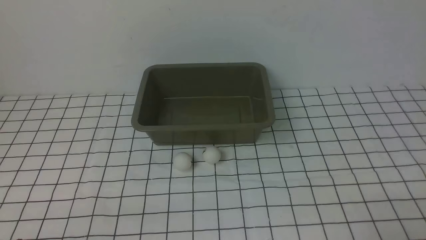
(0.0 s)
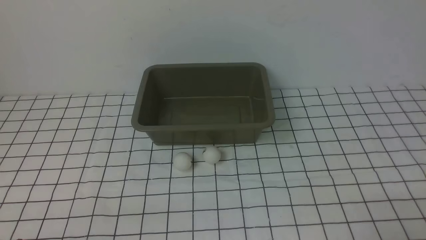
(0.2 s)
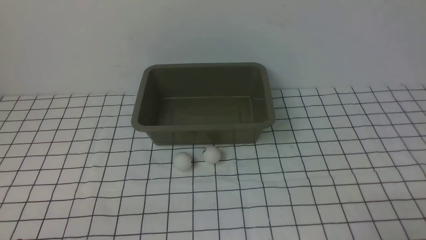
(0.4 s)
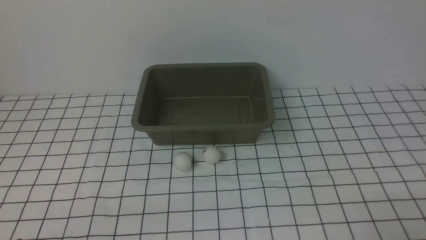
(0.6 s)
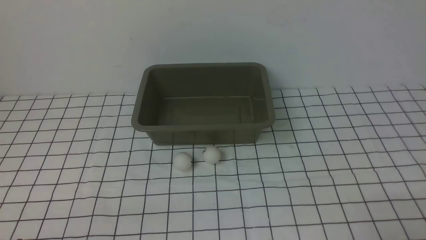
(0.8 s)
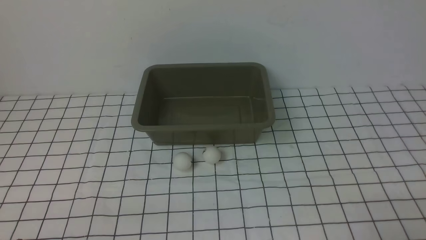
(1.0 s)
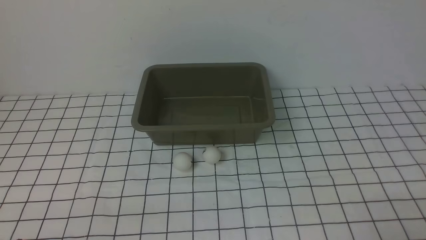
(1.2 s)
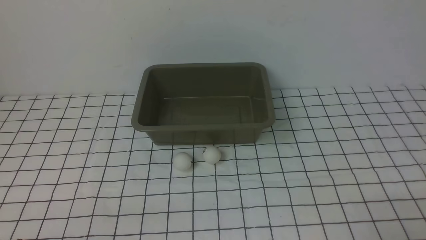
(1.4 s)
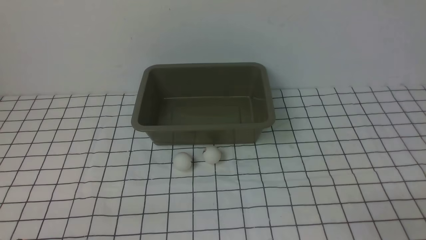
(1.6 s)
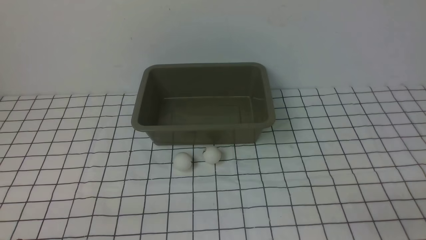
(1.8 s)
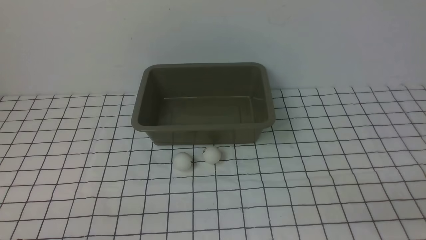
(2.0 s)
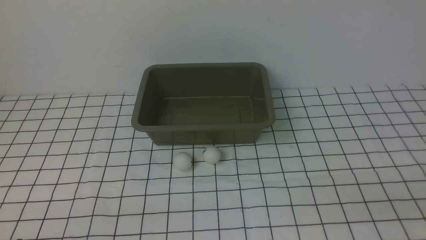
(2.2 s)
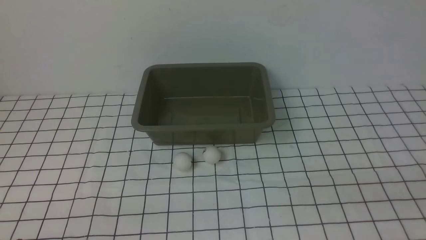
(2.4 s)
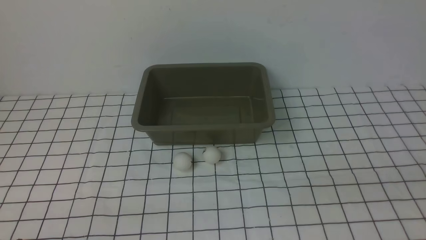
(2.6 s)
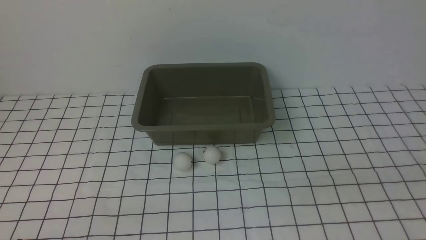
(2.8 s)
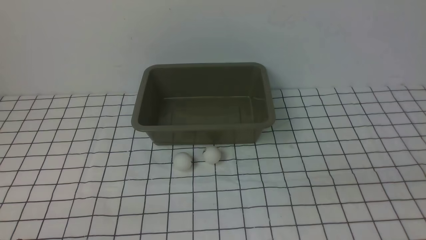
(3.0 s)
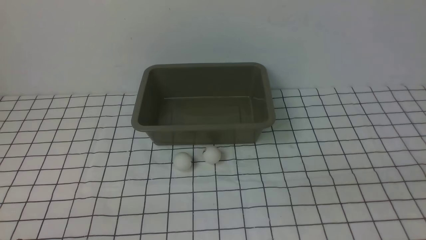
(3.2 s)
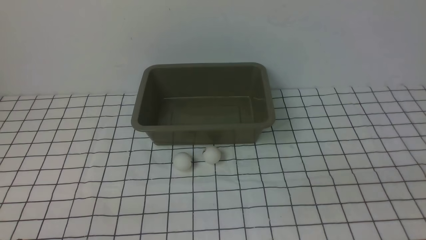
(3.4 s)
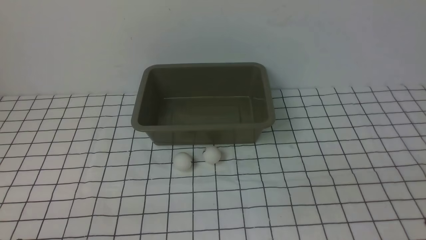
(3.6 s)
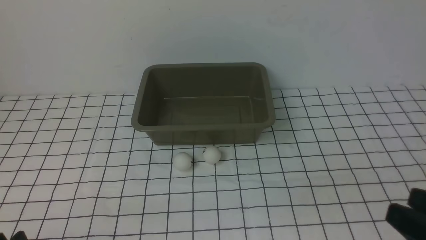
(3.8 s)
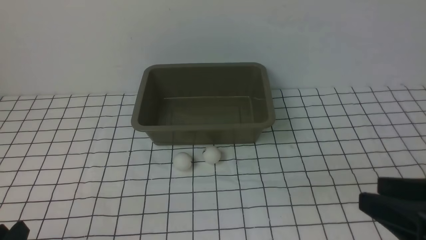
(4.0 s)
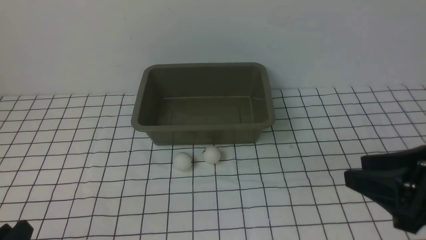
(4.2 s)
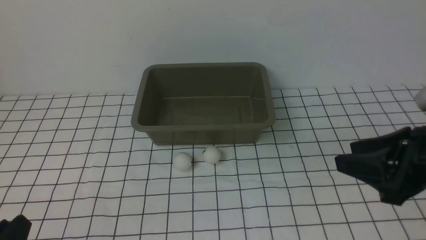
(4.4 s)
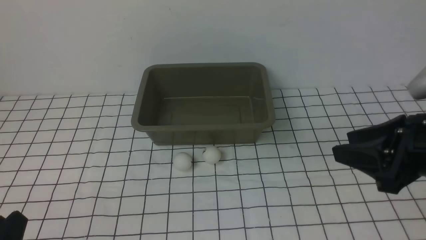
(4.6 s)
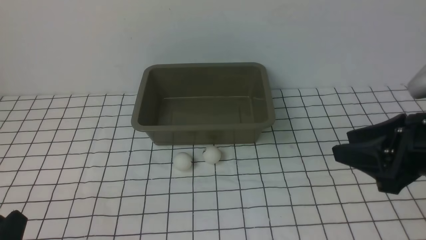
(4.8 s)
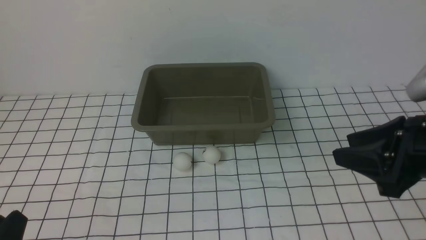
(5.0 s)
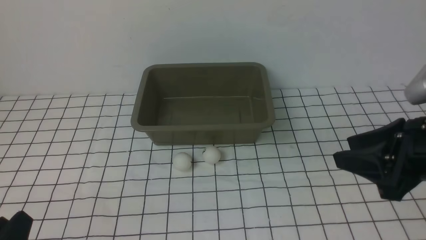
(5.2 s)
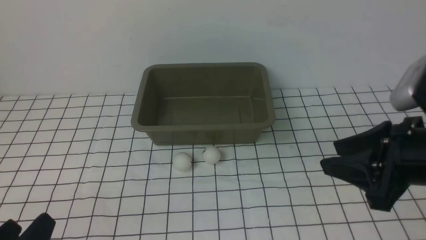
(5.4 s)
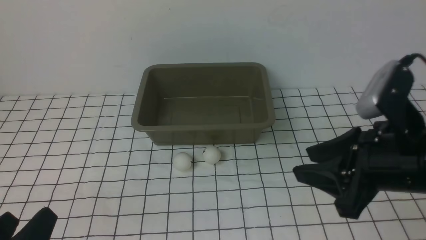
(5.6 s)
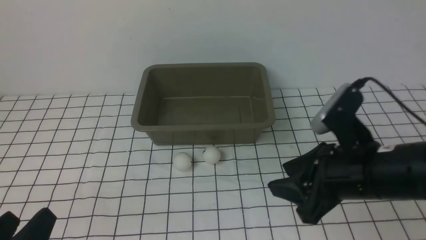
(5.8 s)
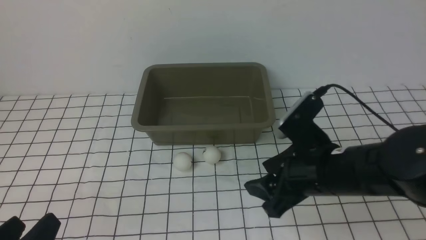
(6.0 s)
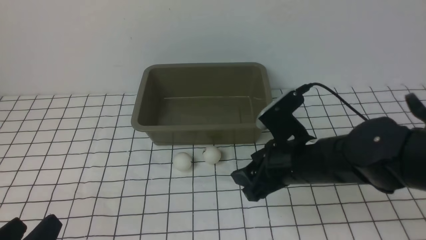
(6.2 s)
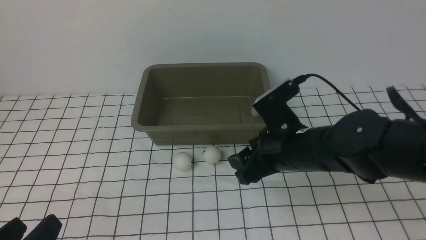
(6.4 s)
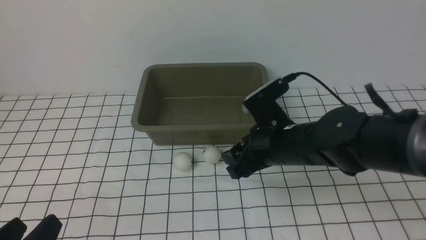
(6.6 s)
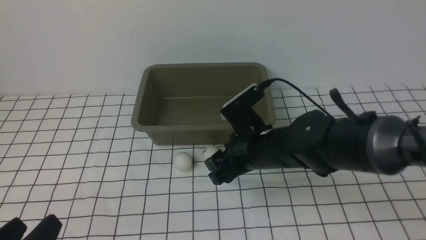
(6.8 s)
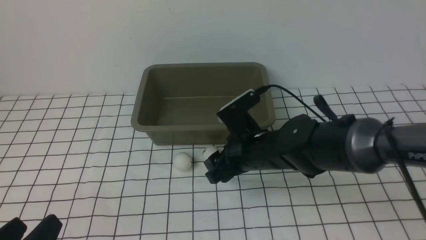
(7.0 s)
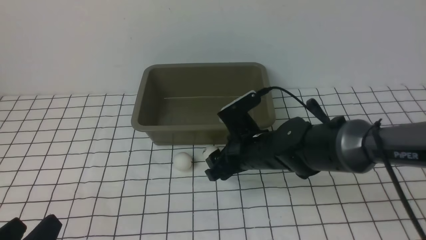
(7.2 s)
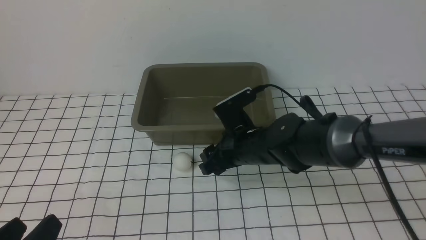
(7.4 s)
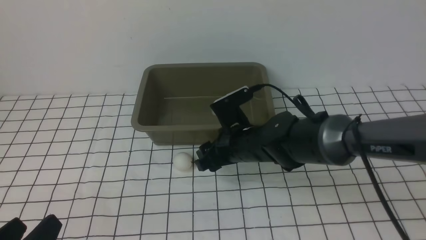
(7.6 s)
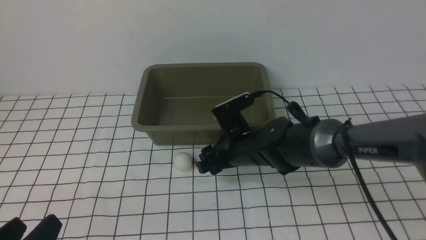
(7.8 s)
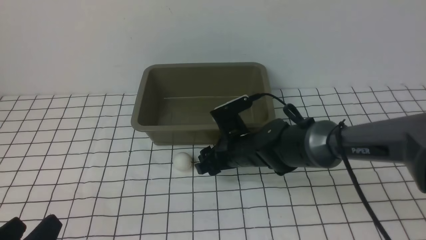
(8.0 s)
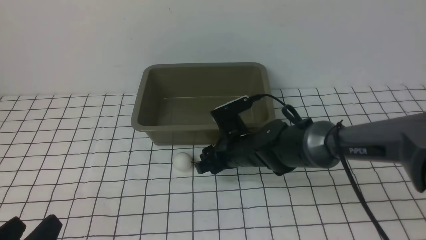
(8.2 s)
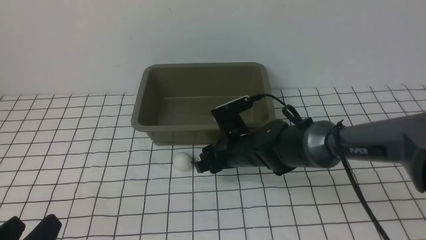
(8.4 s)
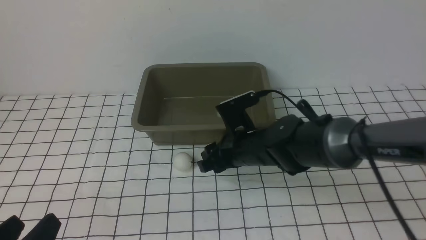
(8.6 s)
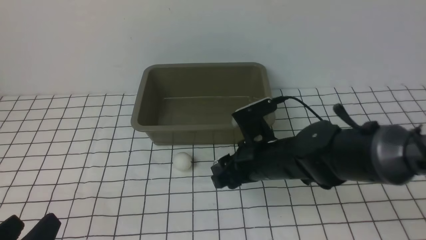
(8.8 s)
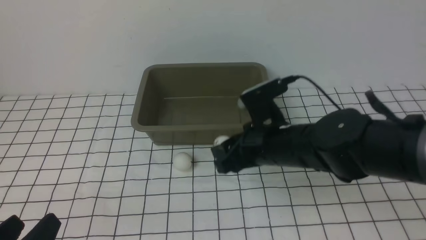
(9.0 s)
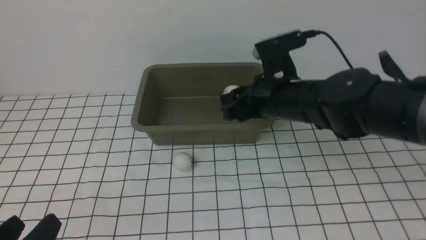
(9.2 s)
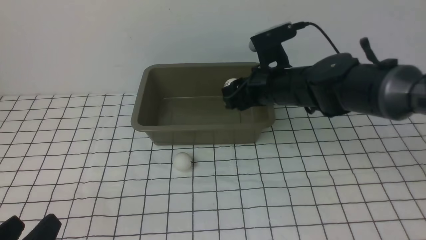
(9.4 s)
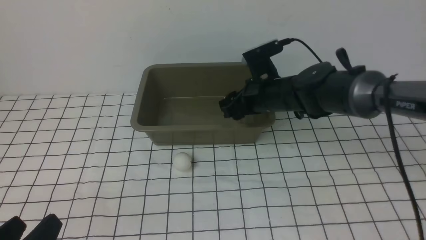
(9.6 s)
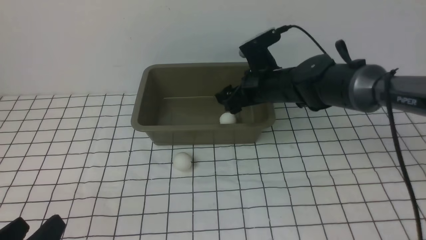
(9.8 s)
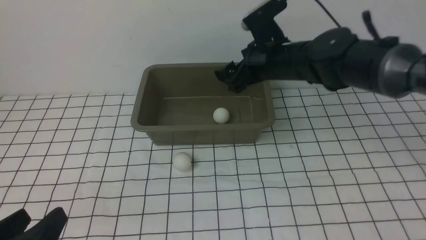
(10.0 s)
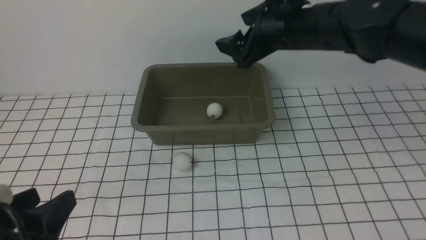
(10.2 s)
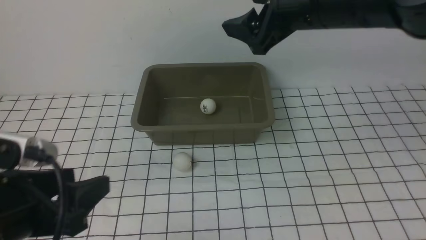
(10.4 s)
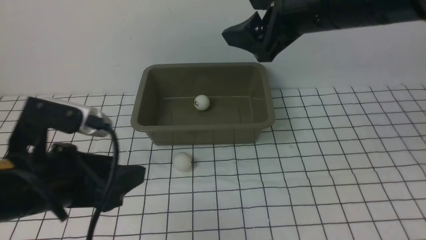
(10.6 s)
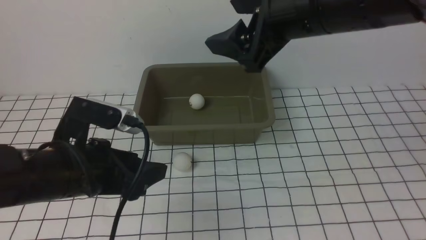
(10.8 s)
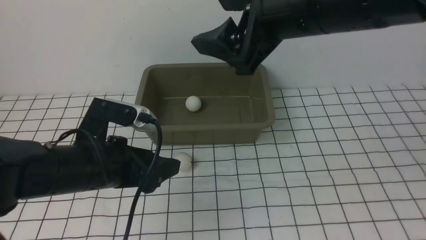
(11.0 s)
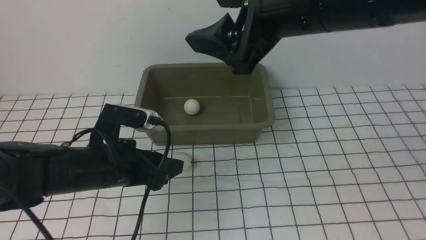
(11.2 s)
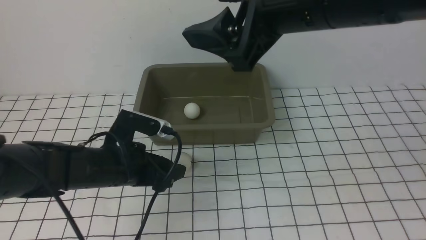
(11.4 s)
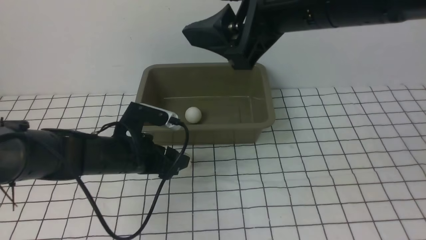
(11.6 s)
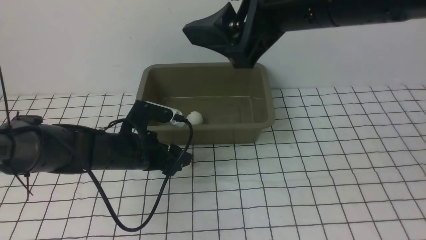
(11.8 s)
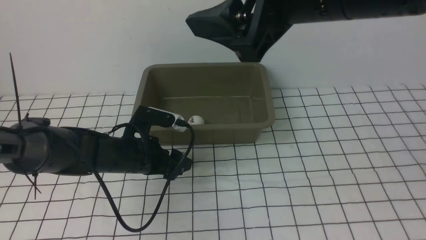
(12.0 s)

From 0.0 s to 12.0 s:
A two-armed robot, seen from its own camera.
Step, from 0.0 s to 8.8 s: use the right arm to clamp the table tennis ball closest to it.
Step, from 9.0 s to 9.8 s: use the right arm to put the table tennis ball into the box.
From 3.0 s to 4.4 s: The right gripper travels forward by approximately 15 cm.
From 4.4 s to 6.0 s: The right gripper moves to the left and forward, about 10 cm. Meanwhile the left gripper opens its fingers.
From 6.0 s to 7.6 s: The right gripper travels forward, to the left and downward by about 20 cm.
From 7.6 s to 9.0 s: The right gripper goes about 5 cm upward, and closes up.
From 9.0 s to 10.4 s: The left gripper travels upward by about 5 cm. Meanwhile the right gripper goes some 15 cm upward and forward, and opens its fingers.
From 10.4 s to 12.0 s: The left gripper travels forward and downward by roughly 25 cm. Meanwhile the right gripper shifts roughly 15 cm backward and upward.

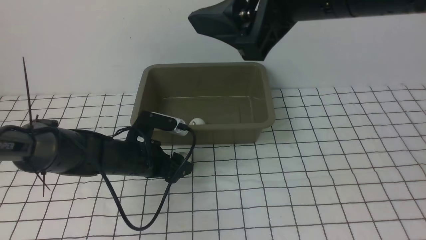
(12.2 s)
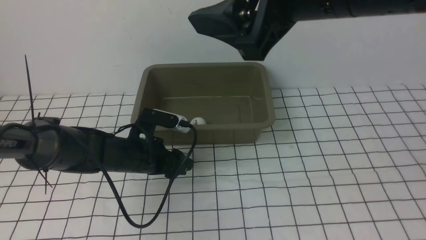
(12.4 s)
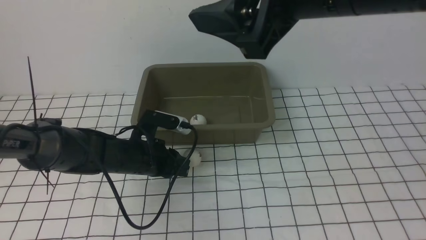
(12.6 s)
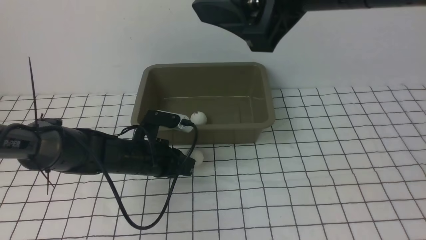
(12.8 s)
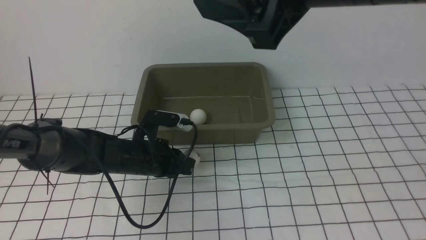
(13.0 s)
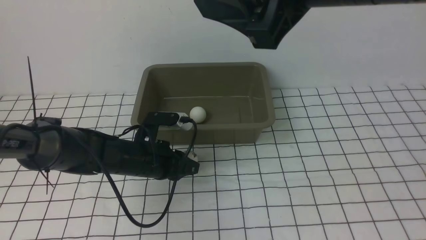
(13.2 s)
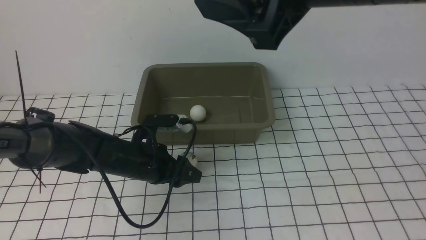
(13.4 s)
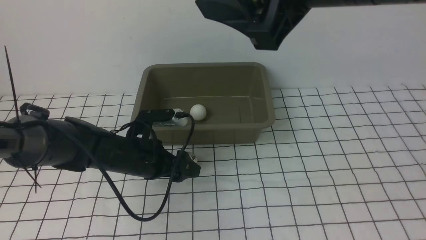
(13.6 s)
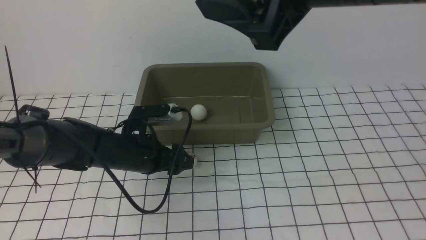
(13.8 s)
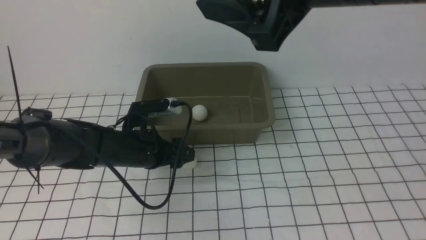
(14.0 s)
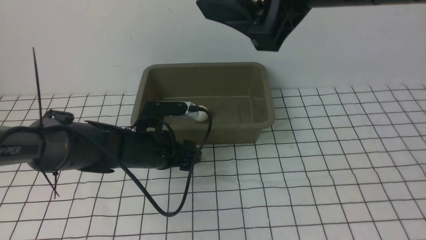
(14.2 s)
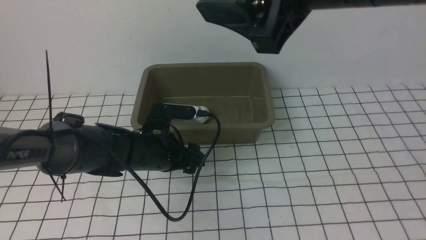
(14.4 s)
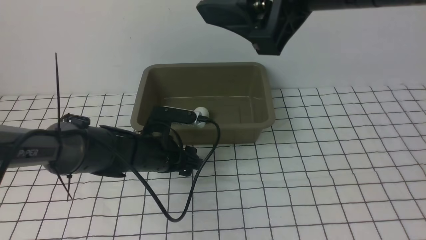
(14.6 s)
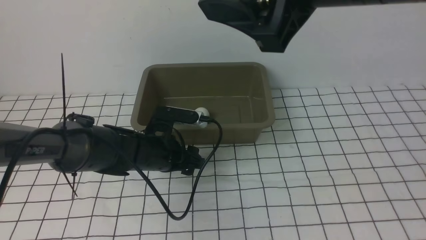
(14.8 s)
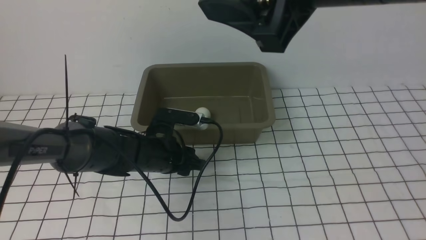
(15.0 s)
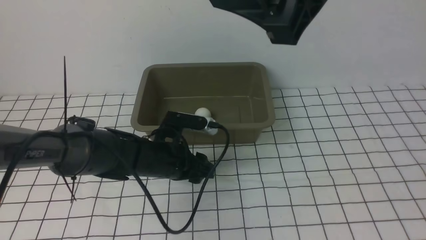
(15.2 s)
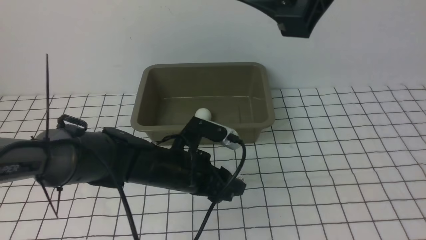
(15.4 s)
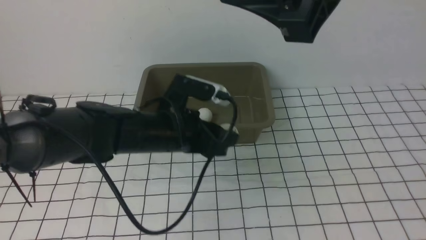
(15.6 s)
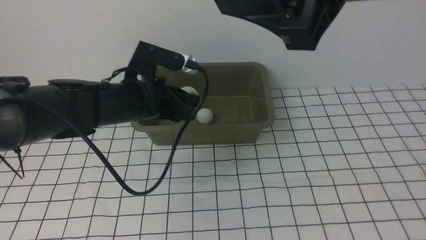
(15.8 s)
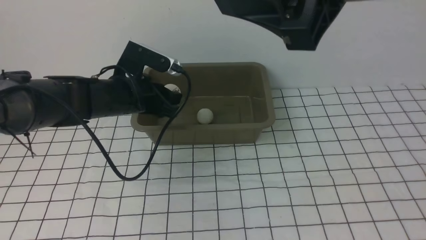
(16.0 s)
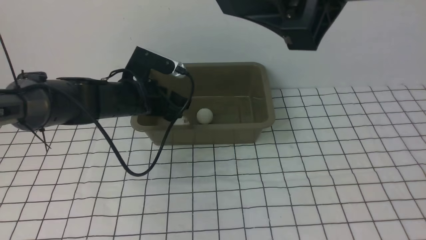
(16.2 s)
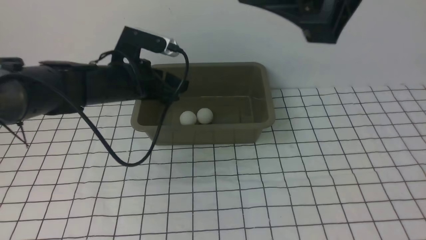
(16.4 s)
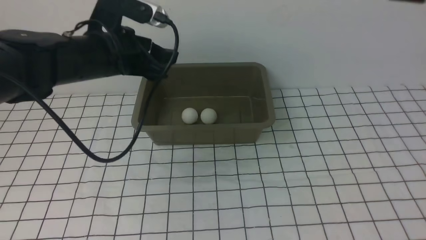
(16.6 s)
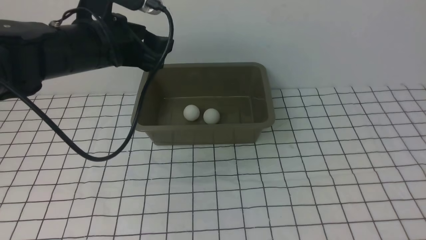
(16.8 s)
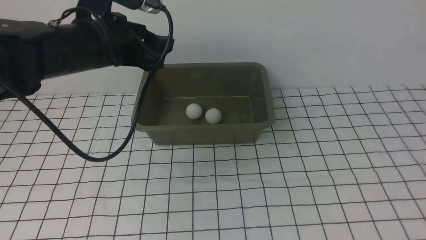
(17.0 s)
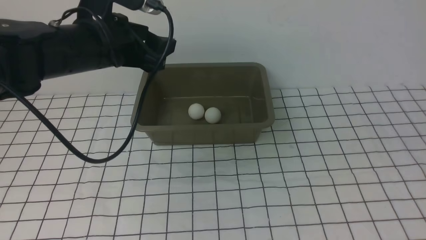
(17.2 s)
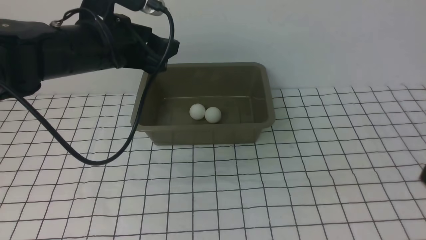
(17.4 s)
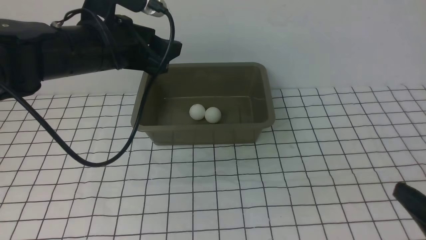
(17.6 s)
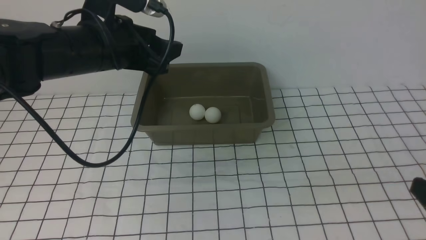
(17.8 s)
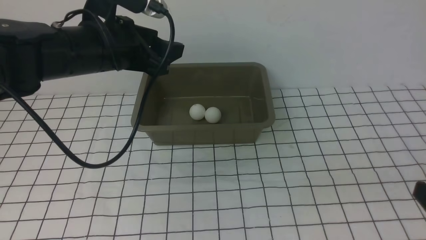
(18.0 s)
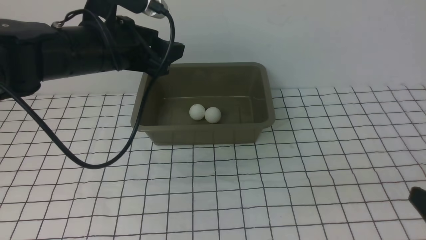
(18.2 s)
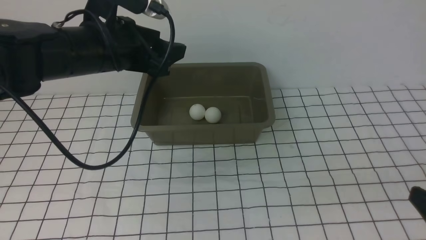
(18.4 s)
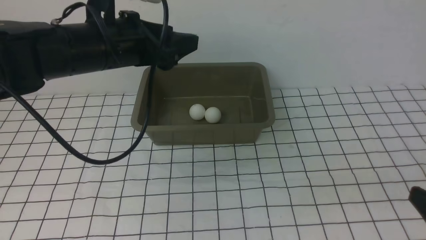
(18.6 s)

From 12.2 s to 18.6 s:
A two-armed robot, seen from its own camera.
Step, from 12.2 s to 15.4 s: use the left arm to clamp the table tennis ball closest to it.
Step, from 15.6 s to 16.4 s: use the left arm to put the table tennis ball into the box.
From 12.2 s to 13.8 s: The left gripper closes, then opens again.
From 13.8 s to 15.4 s: The left gripper travels to the right by some 5 cm, and closes up.
From 15.4 s to 17.0 s: The left gripper moves upward and to the left, about 15 cm, and opens its fingers. Meanwhile the right gripper heads to the right and backward, covering roughly 15 cm.
From 17.0 s to 18.6 s: The right gripper heads downward, covering about 25 cm.
